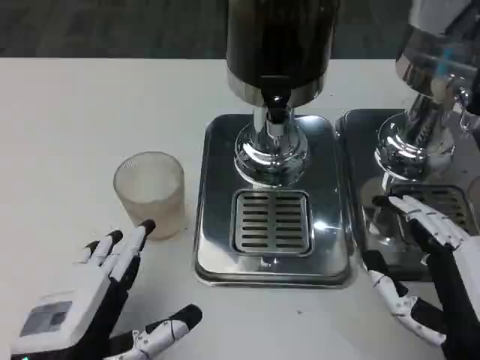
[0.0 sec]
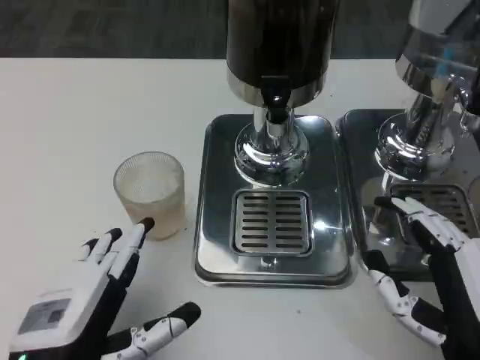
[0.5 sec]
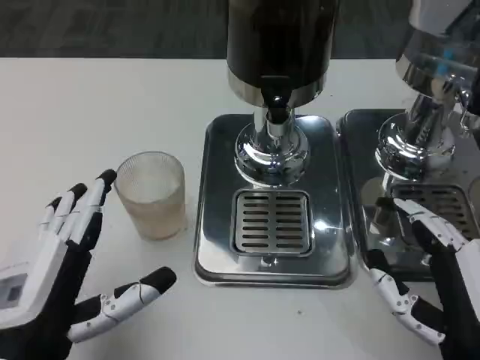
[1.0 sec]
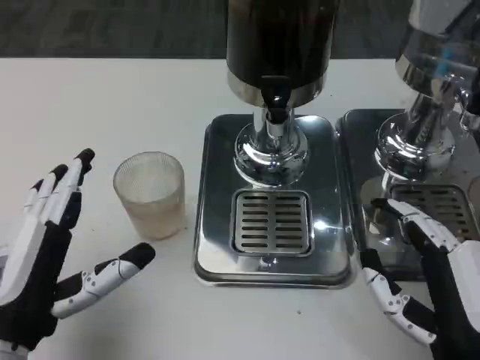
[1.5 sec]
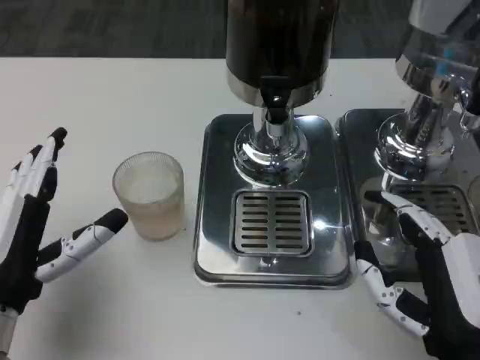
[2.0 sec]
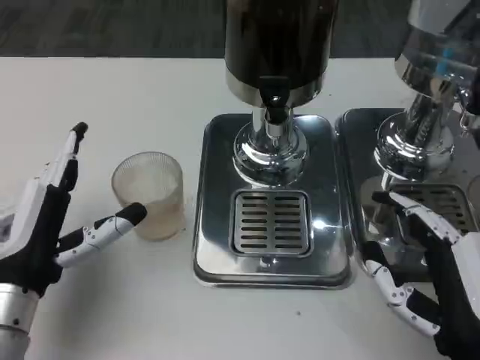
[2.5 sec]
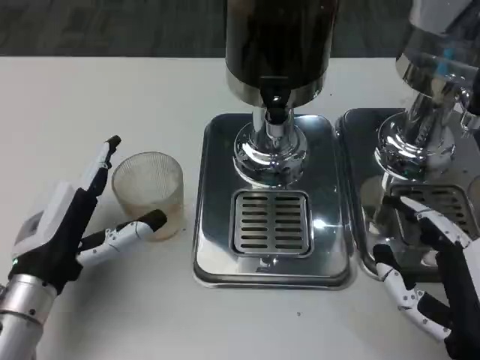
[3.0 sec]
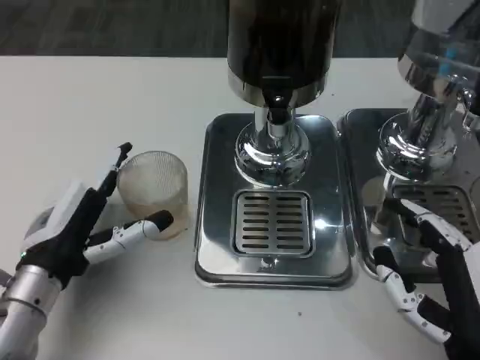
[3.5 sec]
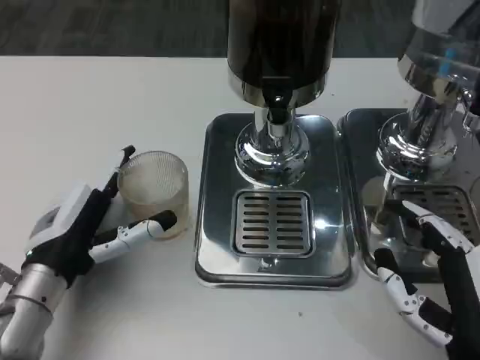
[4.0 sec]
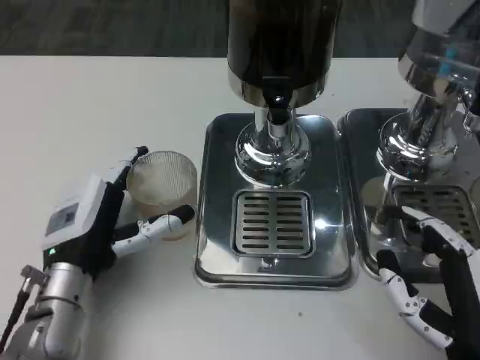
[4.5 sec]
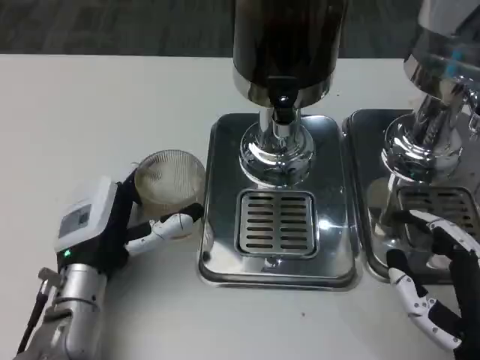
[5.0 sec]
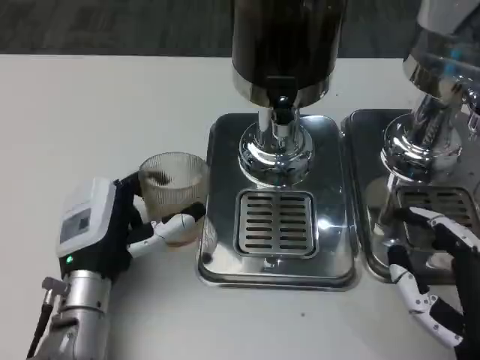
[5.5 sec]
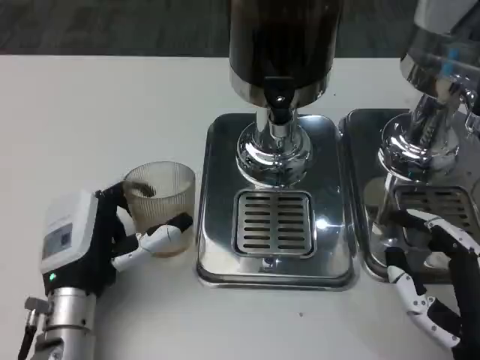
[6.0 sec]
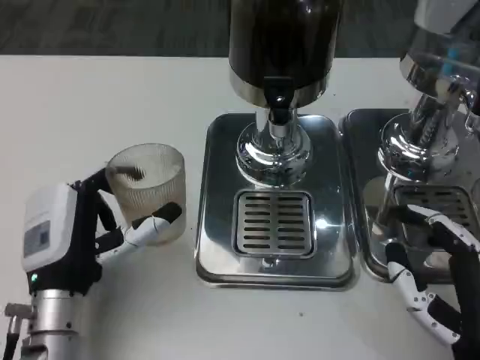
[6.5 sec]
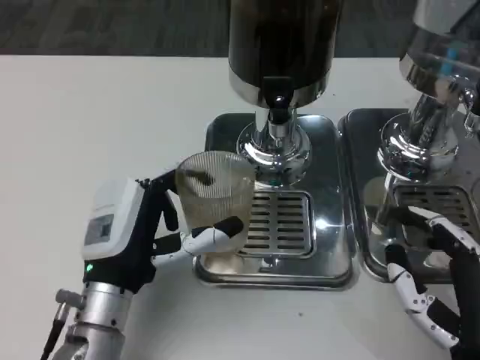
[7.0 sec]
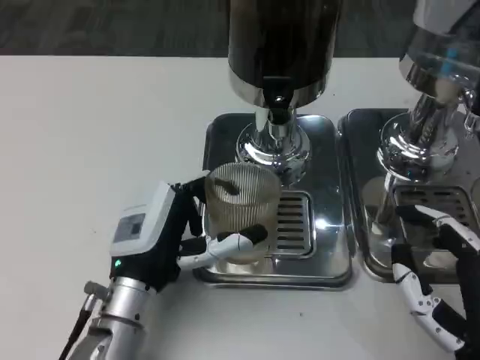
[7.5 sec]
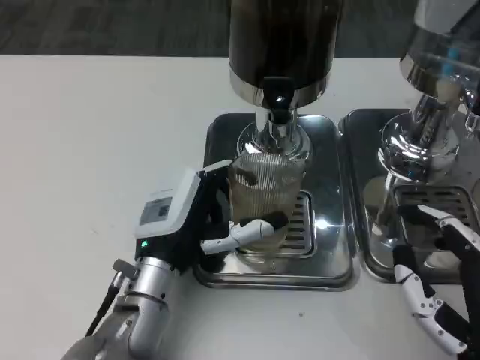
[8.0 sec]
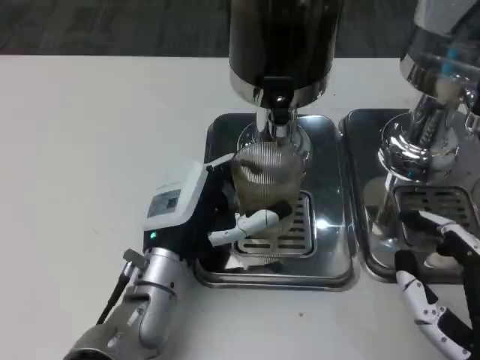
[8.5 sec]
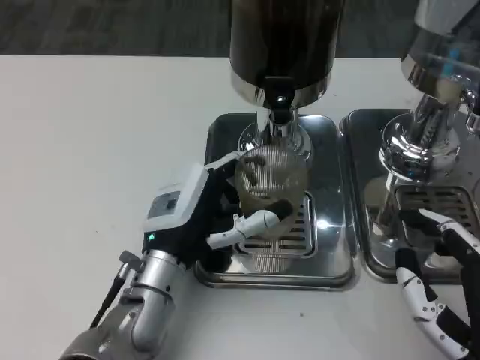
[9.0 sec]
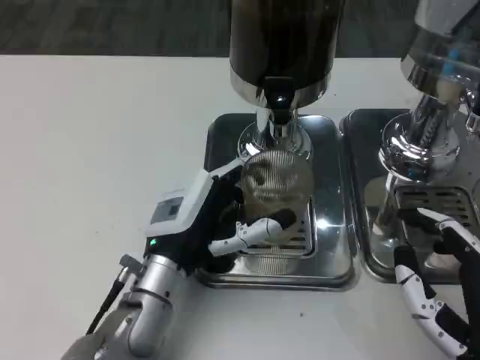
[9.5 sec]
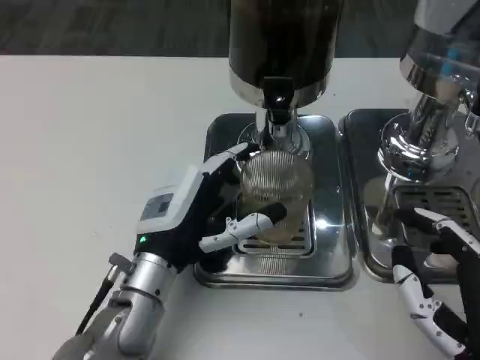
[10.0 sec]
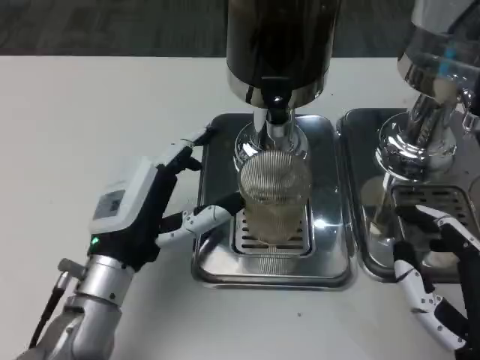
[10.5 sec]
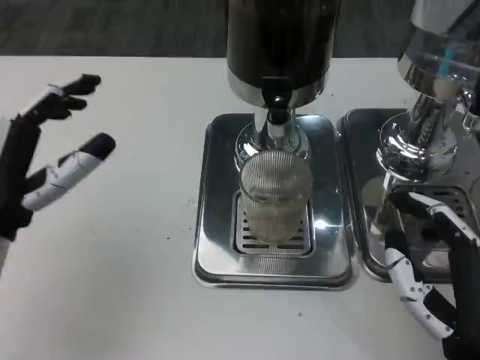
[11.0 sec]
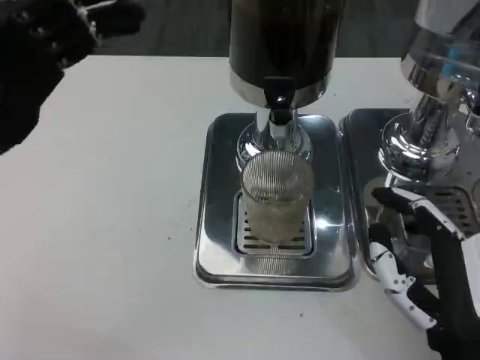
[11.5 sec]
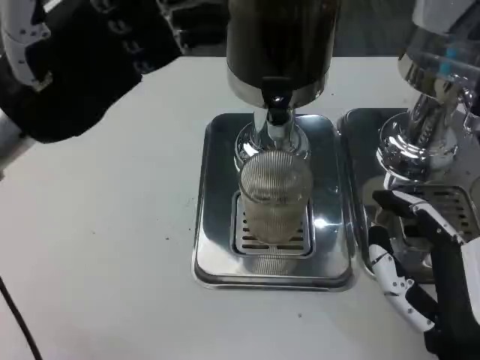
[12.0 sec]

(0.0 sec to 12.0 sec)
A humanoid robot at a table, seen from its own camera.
Task of the whole recording: Grasp the cup under the faucet to collect the drink, then remove the cup.
0.0 sec - 2.0 sec: The left hand travels forward and to the left by about 10 cm.
2.0 sec - 4.0 sec: The left hand shifts approximately 5 cm forward.
4.0 sec - 6.0 sec: The left hand moves approximately 5 cm.
6.0 sec - 8.0 sec: The left hand goes roughly 5 cm to the right.
8.0 sec - 10.0 sec: The hands move only a little.
10.0 sec - 12.0 sec: The left hand heads upward and to the left, covering roughly 20 cm.

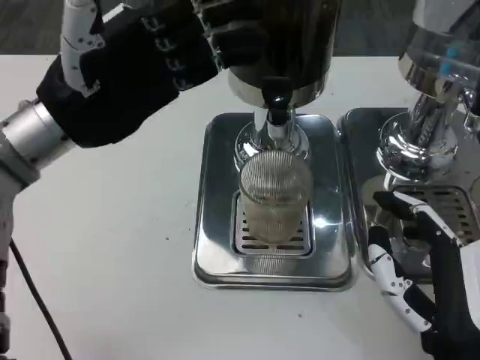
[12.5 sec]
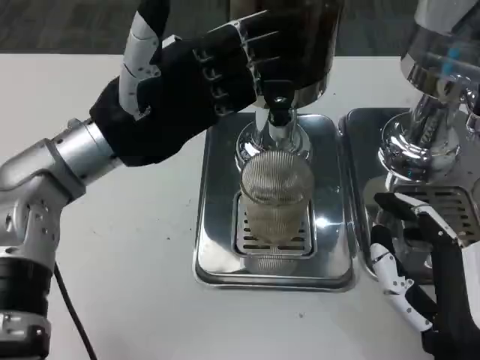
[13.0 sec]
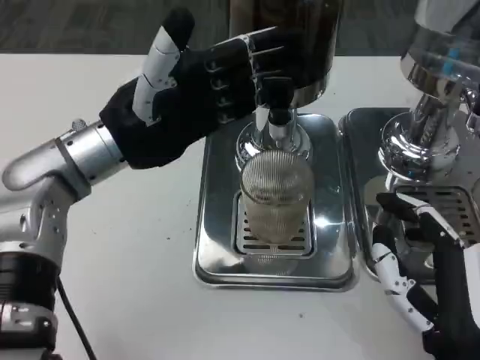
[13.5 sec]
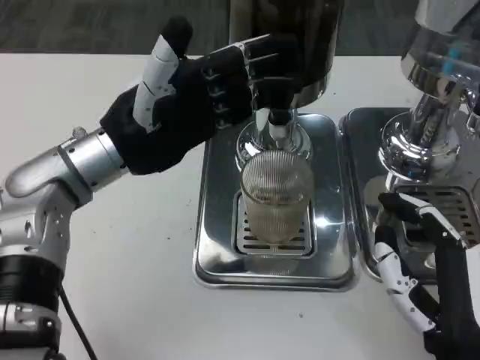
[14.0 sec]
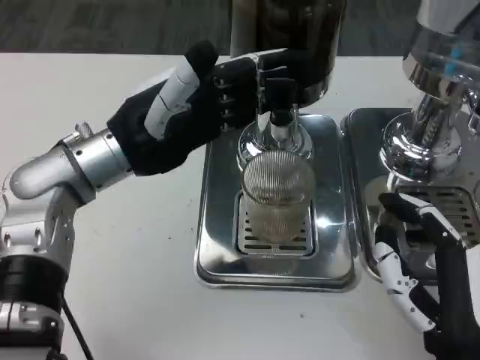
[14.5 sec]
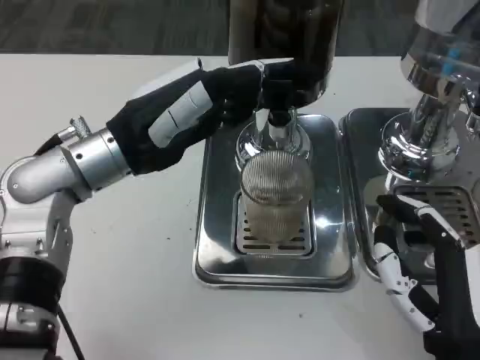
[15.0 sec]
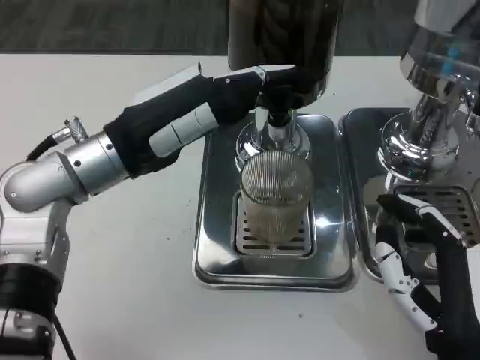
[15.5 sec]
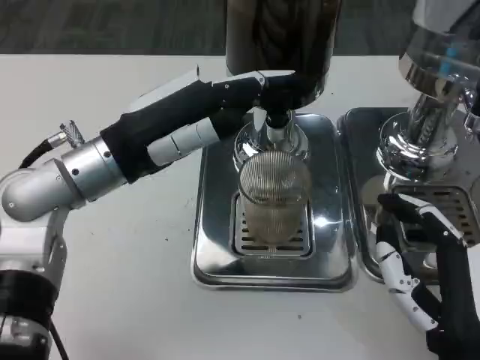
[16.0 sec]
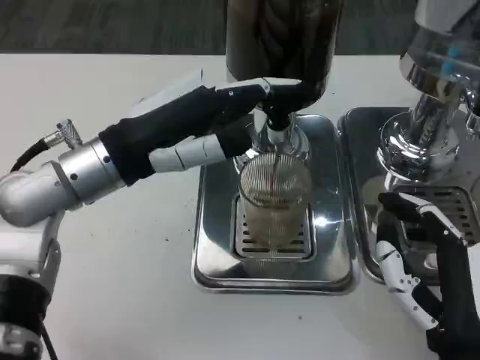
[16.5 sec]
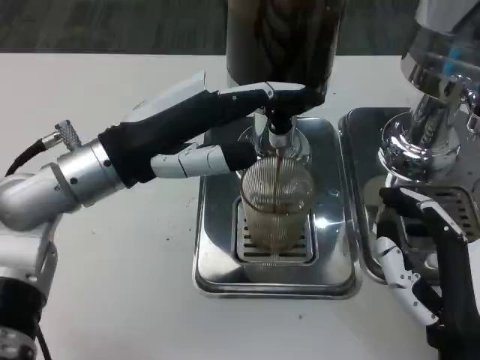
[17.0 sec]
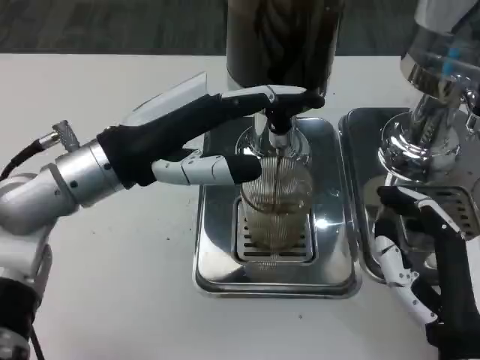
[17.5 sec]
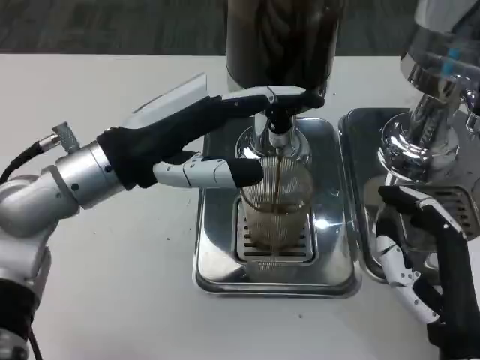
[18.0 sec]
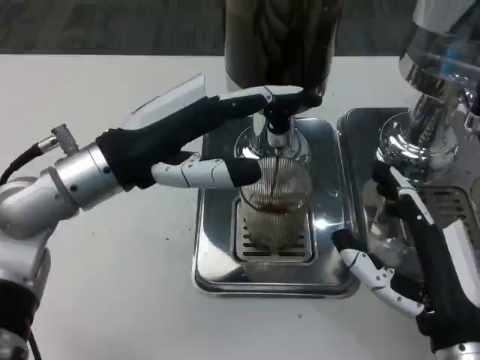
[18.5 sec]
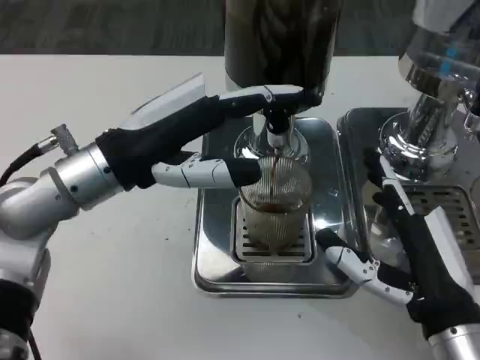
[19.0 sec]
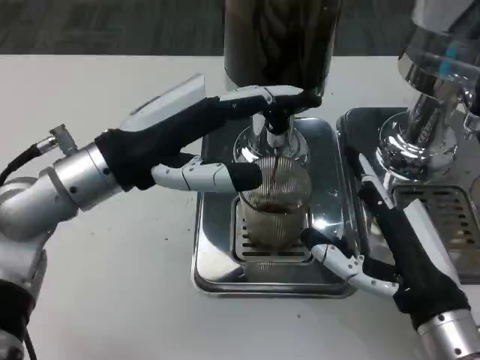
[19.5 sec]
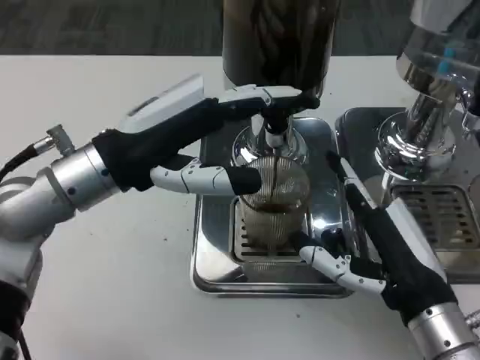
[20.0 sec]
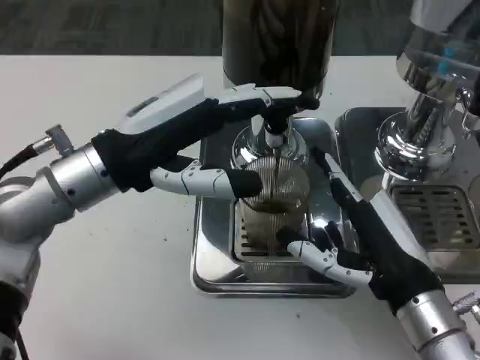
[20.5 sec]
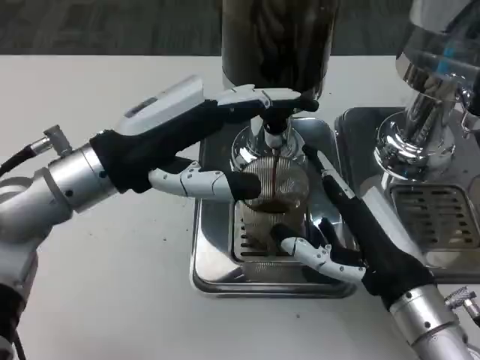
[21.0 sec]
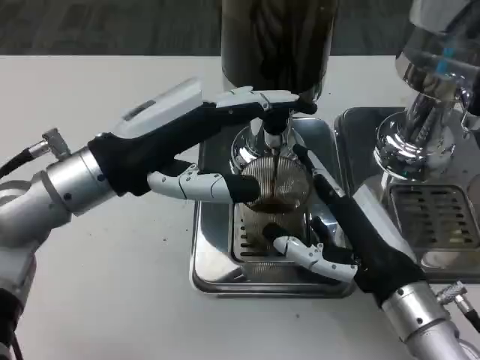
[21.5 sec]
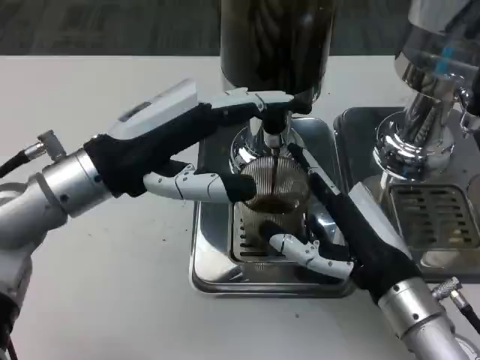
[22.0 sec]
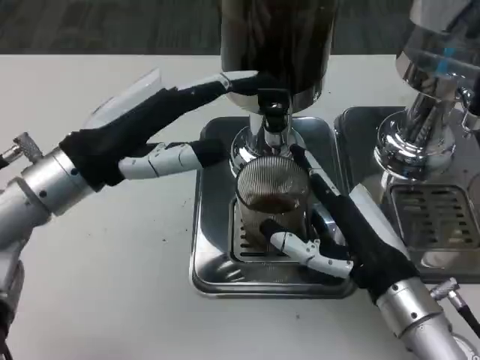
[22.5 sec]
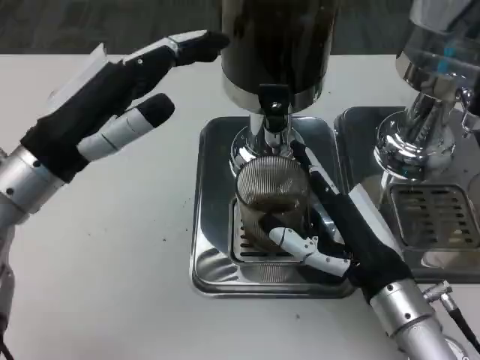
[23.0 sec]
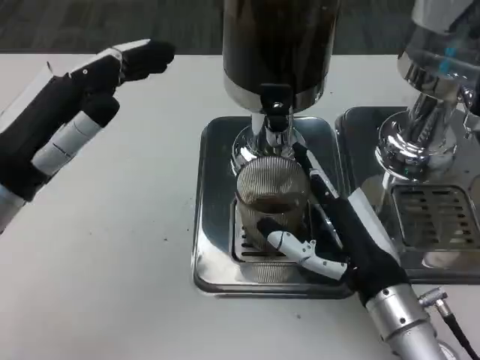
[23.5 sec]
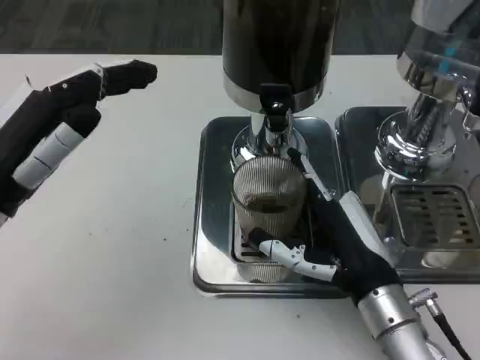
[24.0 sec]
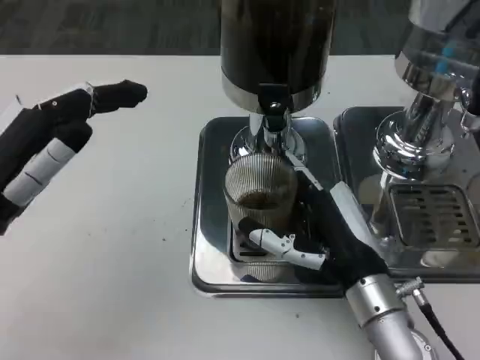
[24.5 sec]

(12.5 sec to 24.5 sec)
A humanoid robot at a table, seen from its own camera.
Task of the whole recording: Grasp the cup under the faucet to collect the drink, then remove the cup.
12.5 sec - 14.5 sec: The left hand changes place by approximately 5 cm.
22.5 sec - 24.5 sec: The left hand shifts approximately 10 cm to the left and backward.

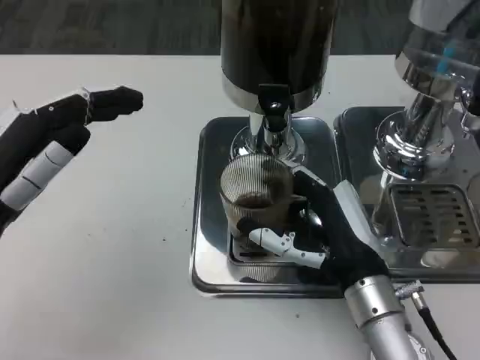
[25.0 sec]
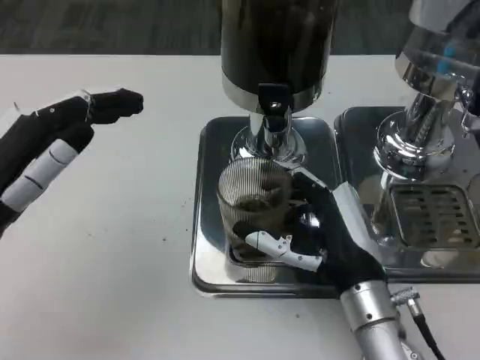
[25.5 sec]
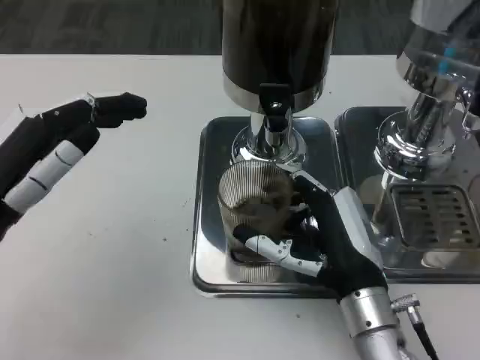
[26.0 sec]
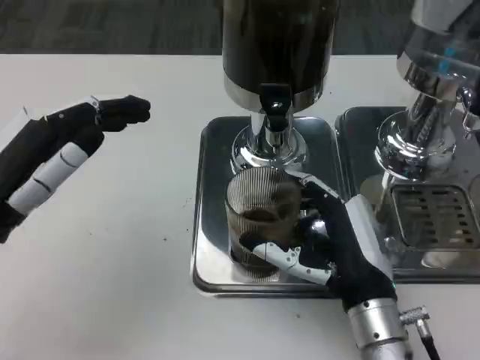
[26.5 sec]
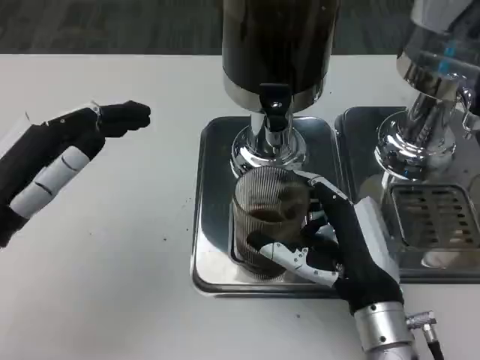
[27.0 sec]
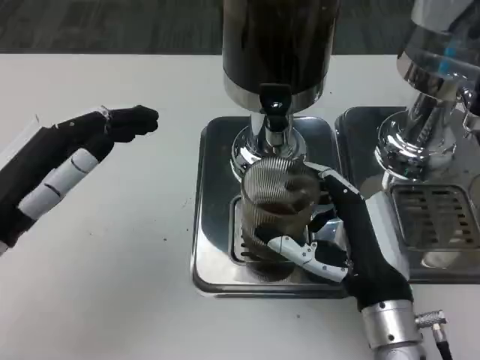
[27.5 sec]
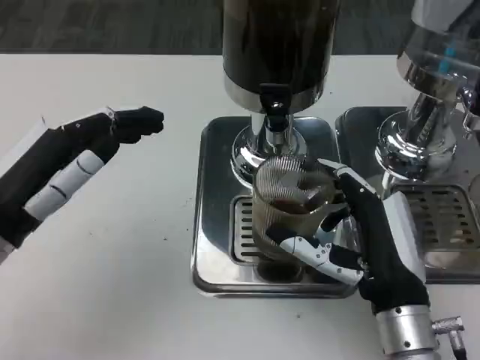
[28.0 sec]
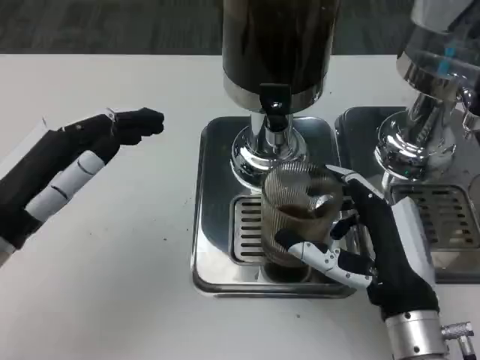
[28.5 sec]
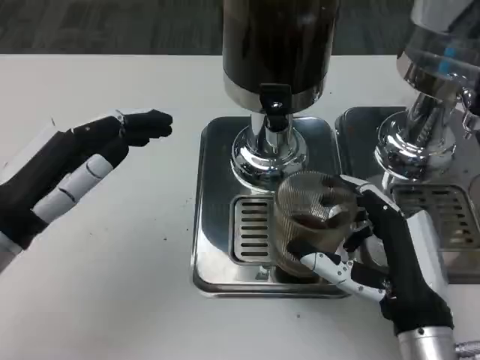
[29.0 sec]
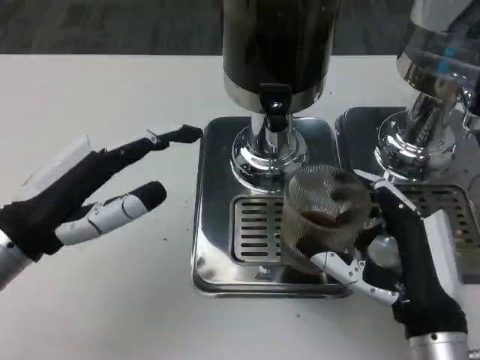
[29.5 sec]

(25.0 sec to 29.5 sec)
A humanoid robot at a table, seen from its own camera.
Task of the whole recording: Grasp the cup under the faucet to collect the drink, then remove the cup.
25.0 sec - 27.0 sec: The hands move only a little.
27.0 sec - 29.5 sec: The right hand shifts by roughly 5 cm.
